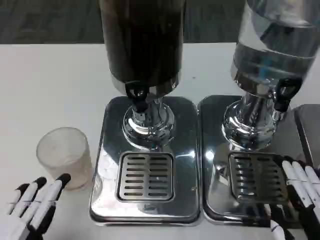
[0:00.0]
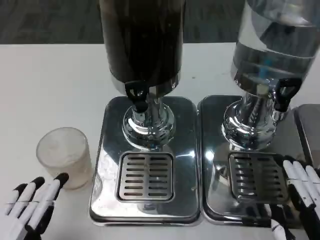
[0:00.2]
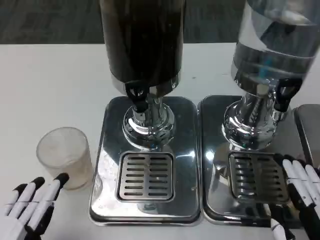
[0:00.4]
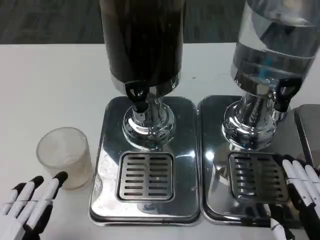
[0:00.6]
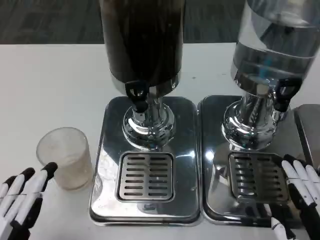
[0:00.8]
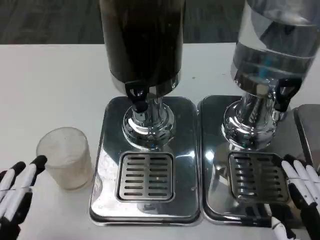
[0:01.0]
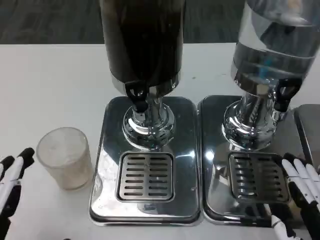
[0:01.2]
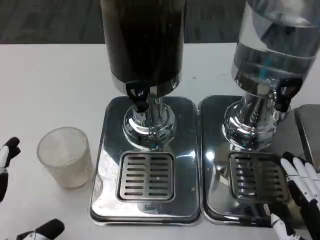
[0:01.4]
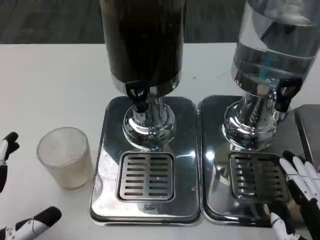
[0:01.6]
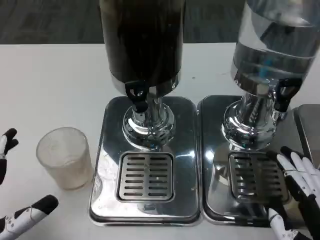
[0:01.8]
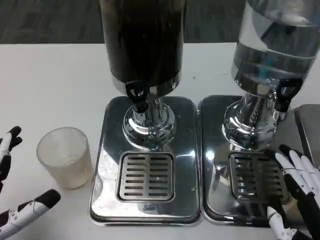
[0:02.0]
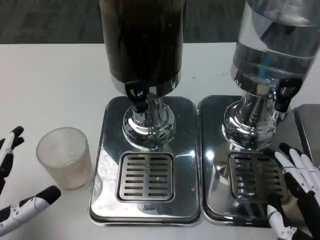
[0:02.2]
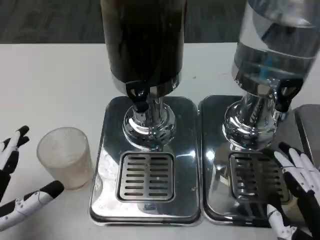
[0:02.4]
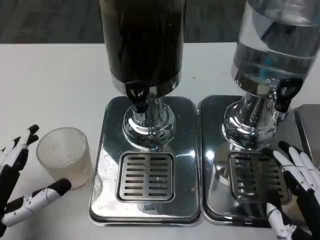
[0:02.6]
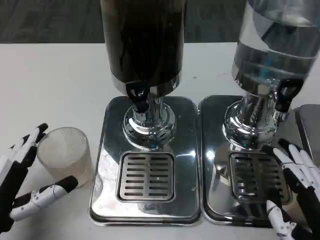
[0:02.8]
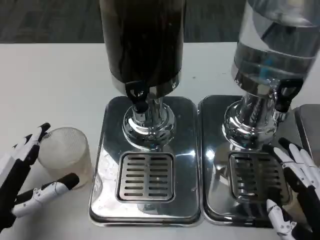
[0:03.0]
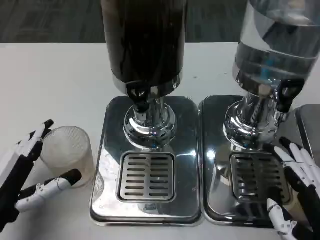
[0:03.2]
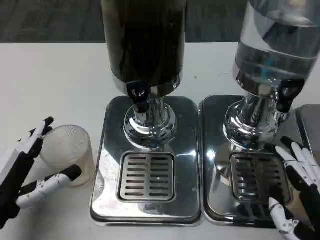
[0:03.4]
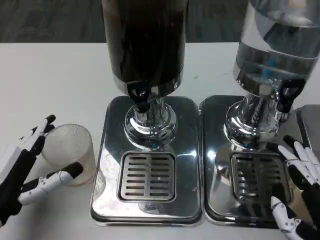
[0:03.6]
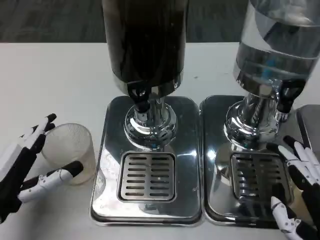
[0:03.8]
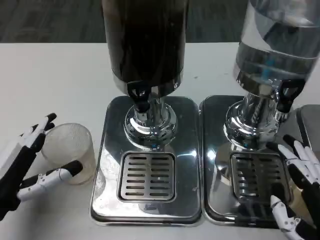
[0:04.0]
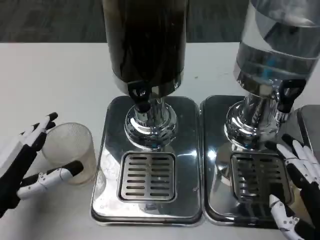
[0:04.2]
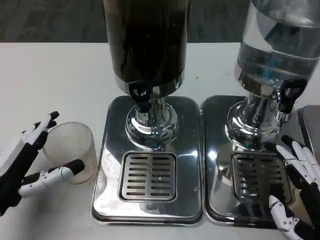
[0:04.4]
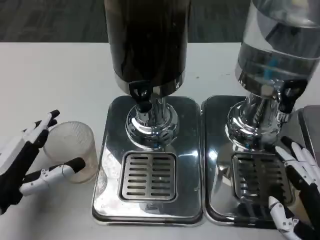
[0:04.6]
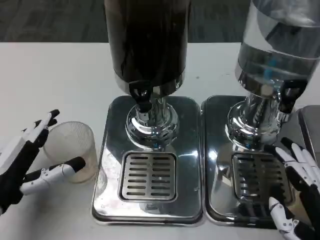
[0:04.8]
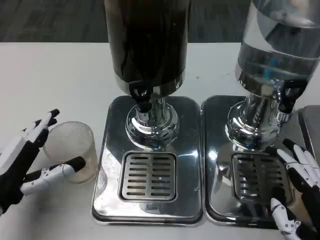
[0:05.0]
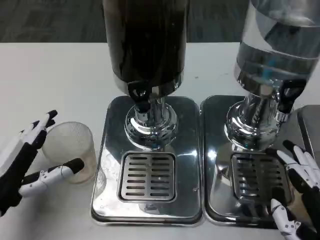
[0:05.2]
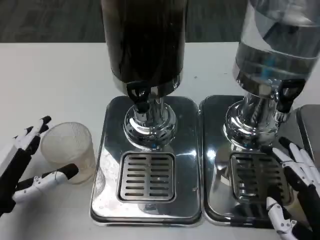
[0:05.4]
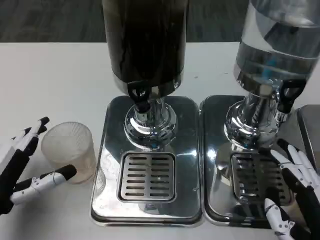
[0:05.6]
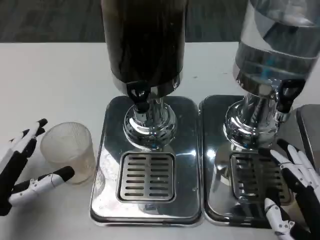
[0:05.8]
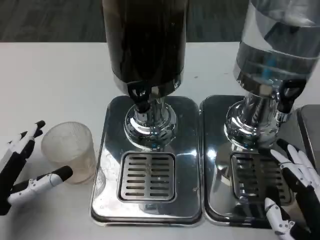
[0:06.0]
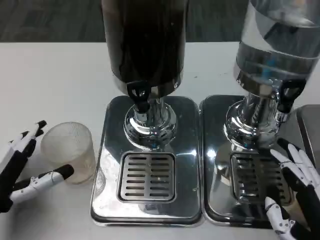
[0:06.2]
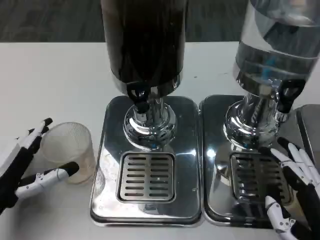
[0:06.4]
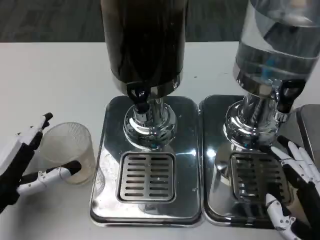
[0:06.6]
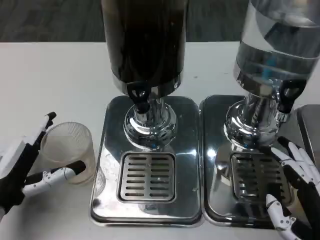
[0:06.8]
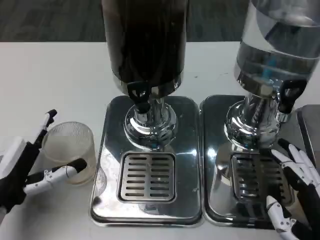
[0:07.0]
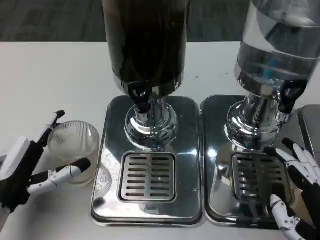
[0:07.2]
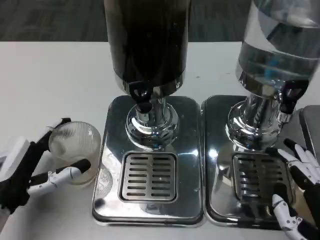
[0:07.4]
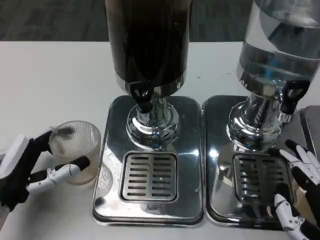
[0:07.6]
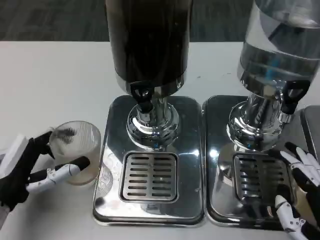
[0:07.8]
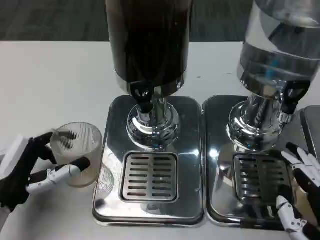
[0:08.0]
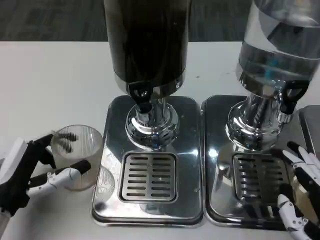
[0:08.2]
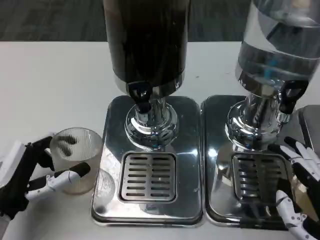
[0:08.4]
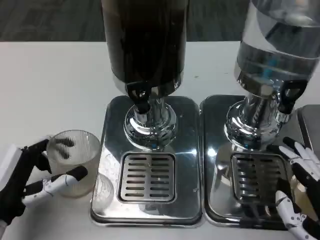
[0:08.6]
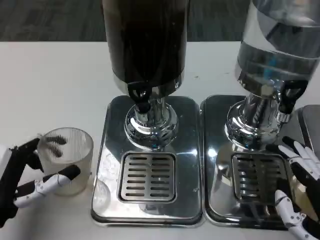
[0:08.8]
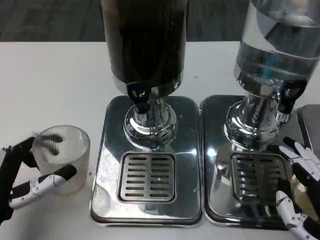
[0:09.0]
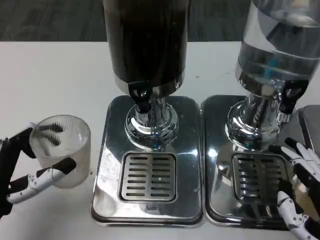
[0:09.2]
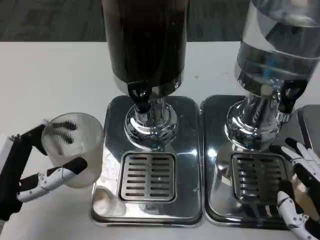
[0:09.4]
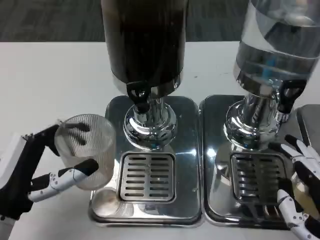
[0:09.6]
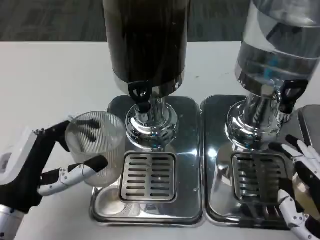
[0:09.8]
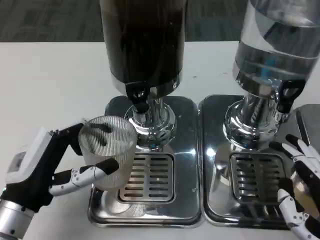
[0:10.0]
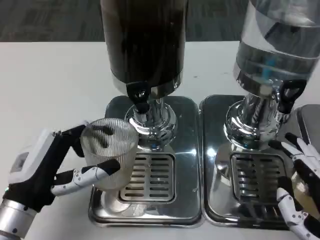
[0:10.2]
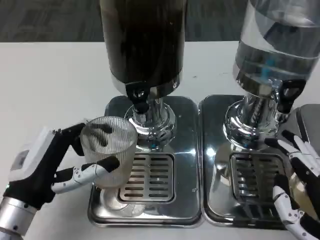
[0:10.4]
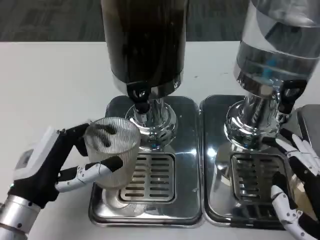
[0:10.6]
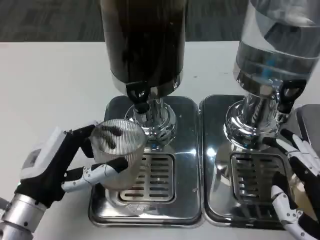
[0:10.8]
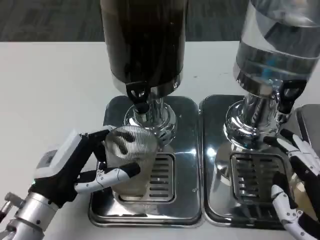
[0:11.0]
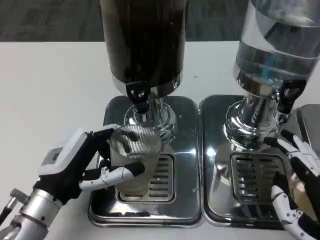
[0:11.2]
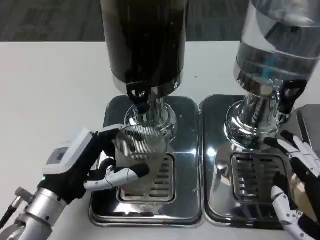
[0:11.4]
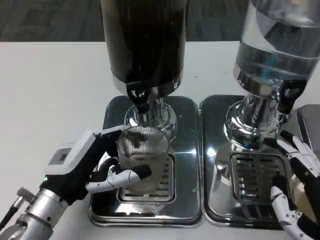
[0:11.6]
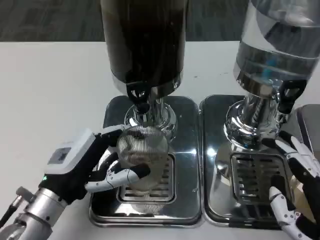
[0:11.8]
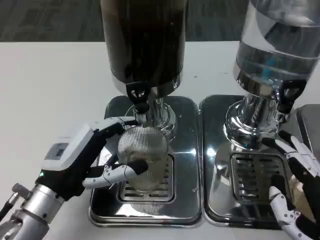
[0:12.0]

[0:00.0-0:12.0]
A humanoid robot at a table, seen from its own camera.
Task of the whole recording: Grasp the cup under the faucet to collect the drink, then remove the cup.
0:00.0 to 0:01.6: There are only small adjustments of the hands.
0:01.6 to 0:03.0: The left hand moves forward, about 10 cm.
0:04.4 to 0:06.0: The hands make only small movements.
0:09.0 to 0:10.4: The left hand ends up some 5 cm from where it was.
0:10.4 to 0:12.0: The hands move only a little.

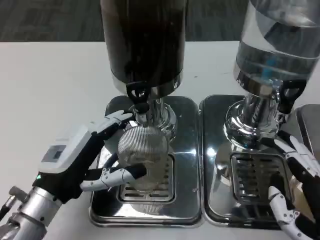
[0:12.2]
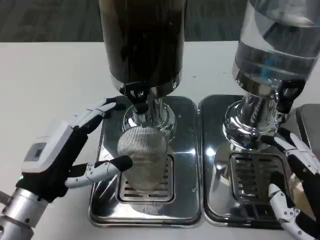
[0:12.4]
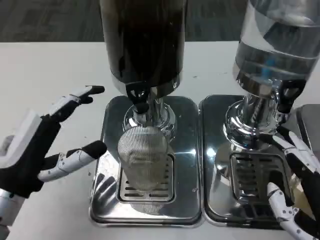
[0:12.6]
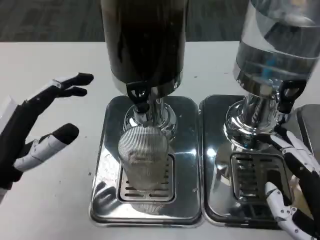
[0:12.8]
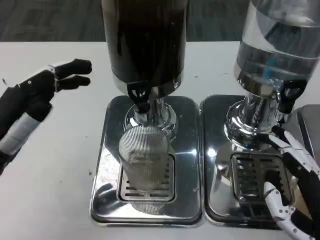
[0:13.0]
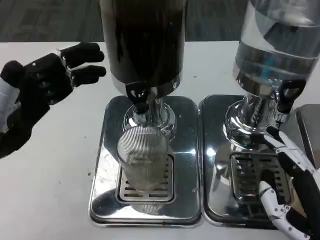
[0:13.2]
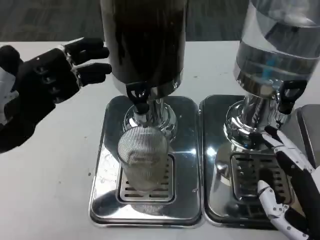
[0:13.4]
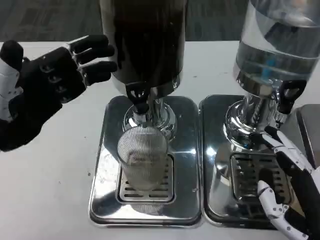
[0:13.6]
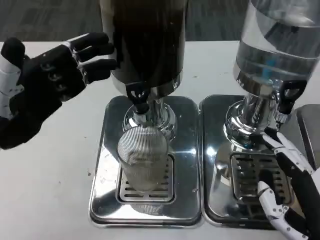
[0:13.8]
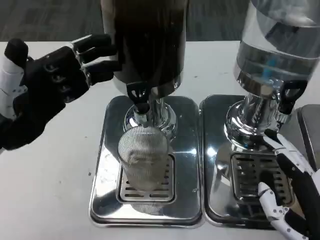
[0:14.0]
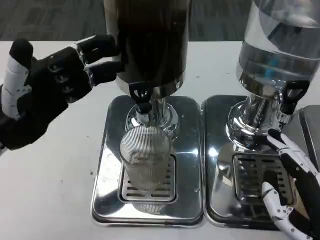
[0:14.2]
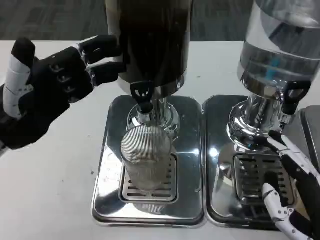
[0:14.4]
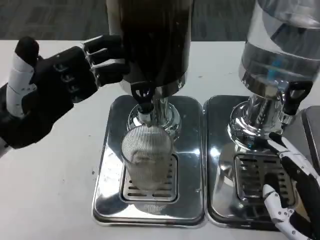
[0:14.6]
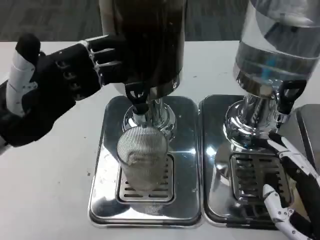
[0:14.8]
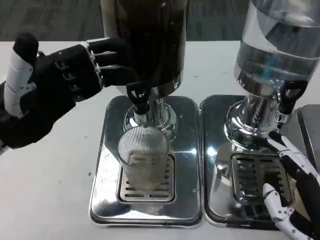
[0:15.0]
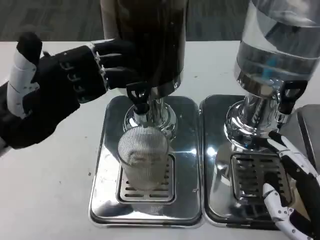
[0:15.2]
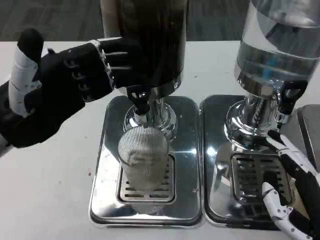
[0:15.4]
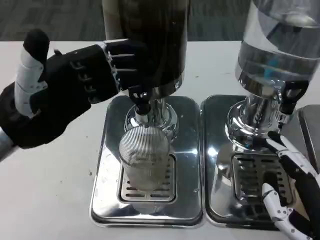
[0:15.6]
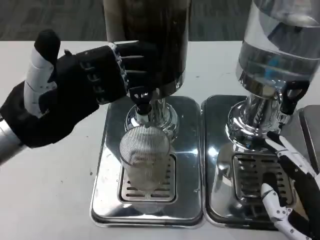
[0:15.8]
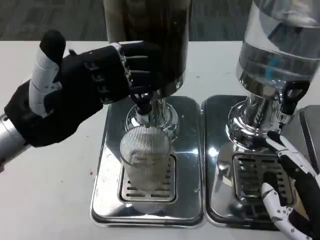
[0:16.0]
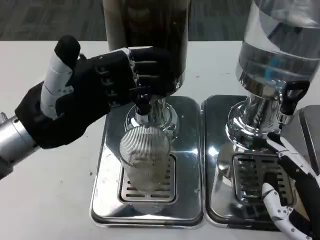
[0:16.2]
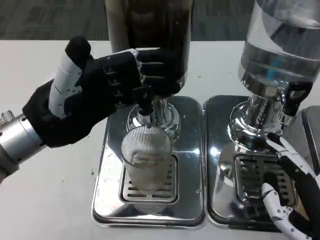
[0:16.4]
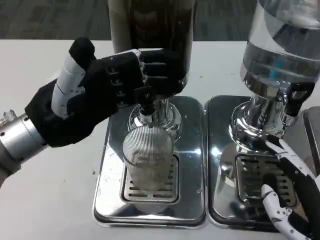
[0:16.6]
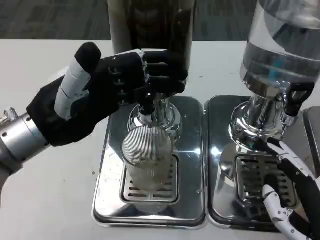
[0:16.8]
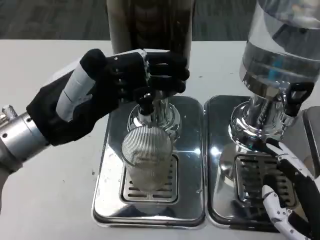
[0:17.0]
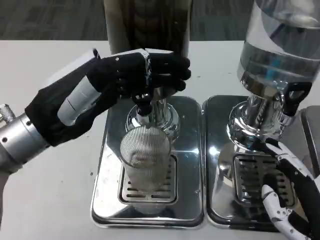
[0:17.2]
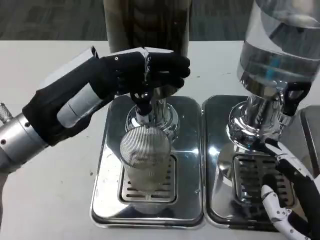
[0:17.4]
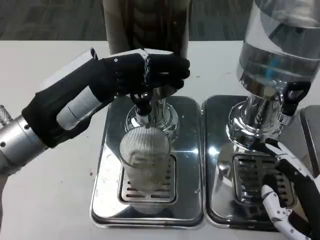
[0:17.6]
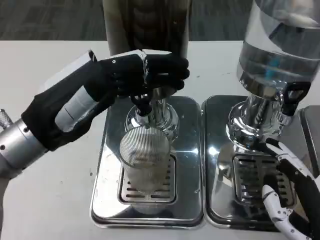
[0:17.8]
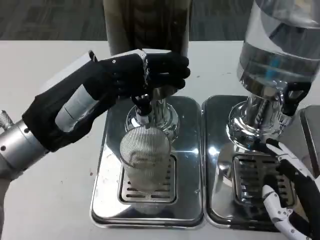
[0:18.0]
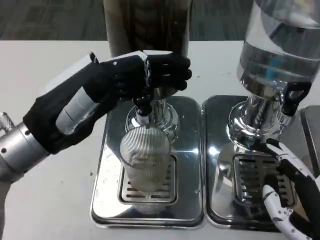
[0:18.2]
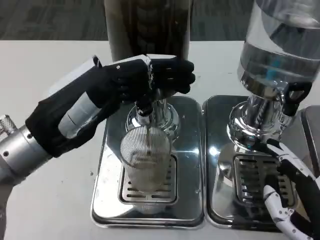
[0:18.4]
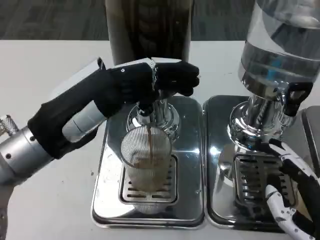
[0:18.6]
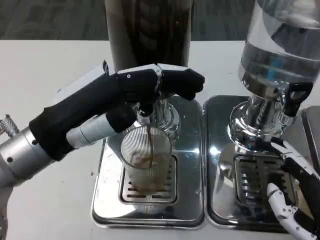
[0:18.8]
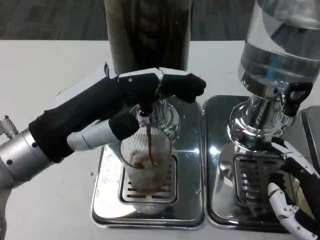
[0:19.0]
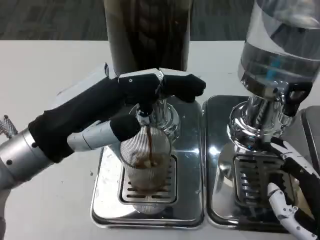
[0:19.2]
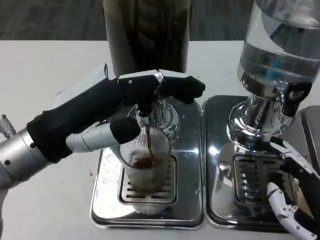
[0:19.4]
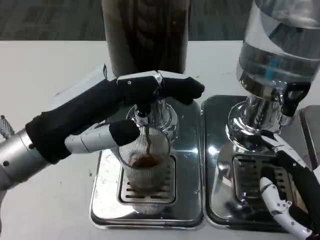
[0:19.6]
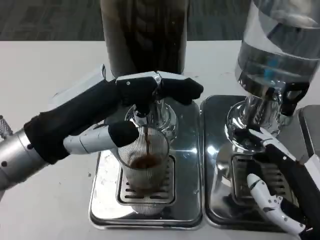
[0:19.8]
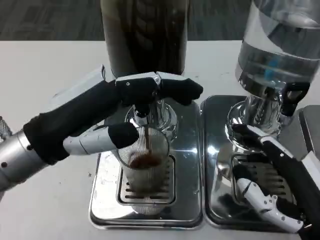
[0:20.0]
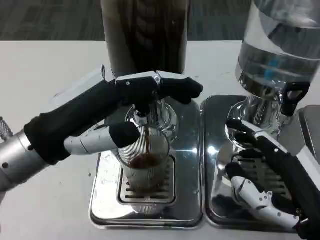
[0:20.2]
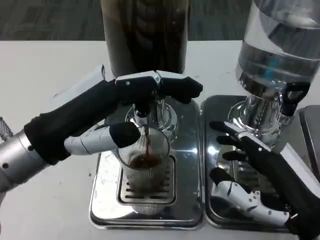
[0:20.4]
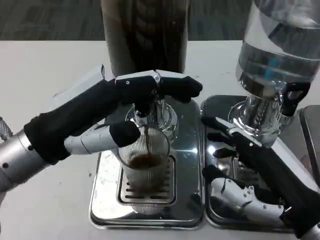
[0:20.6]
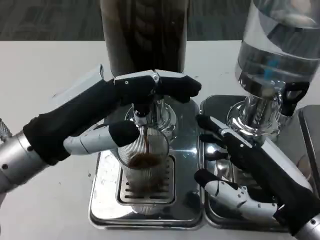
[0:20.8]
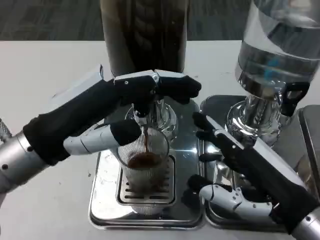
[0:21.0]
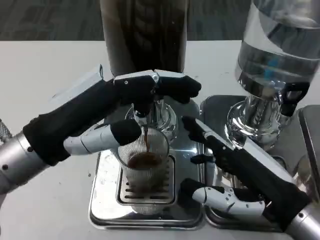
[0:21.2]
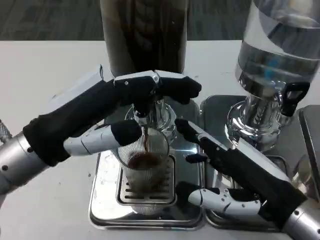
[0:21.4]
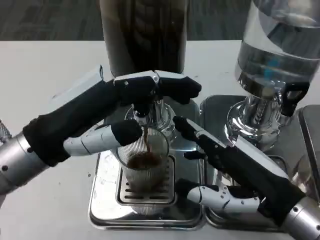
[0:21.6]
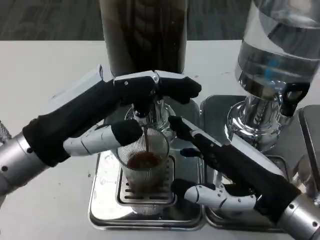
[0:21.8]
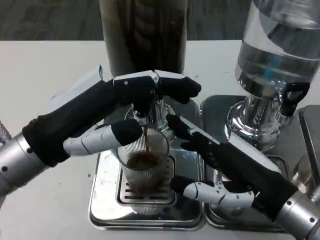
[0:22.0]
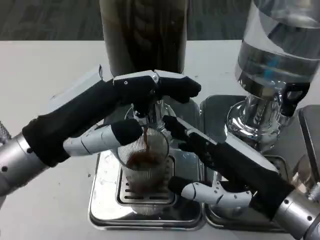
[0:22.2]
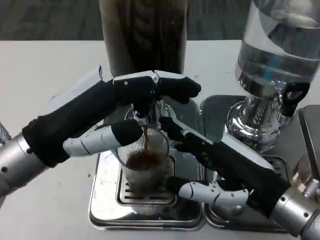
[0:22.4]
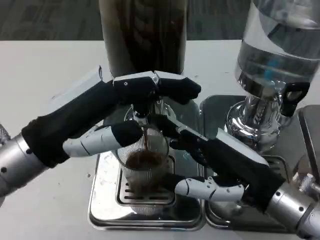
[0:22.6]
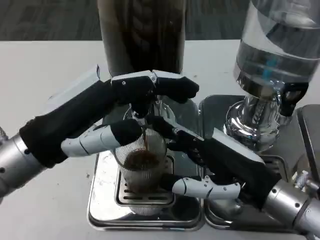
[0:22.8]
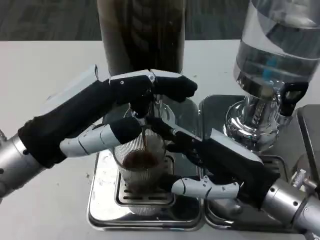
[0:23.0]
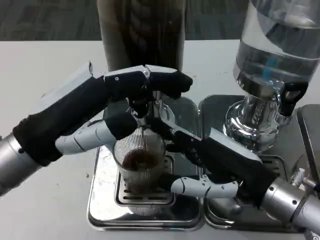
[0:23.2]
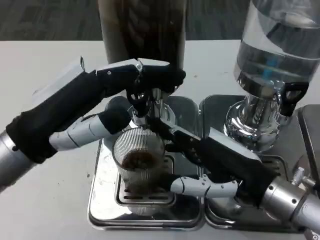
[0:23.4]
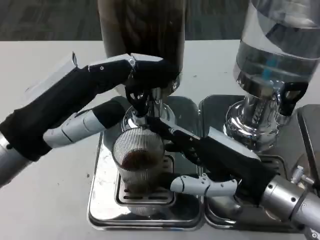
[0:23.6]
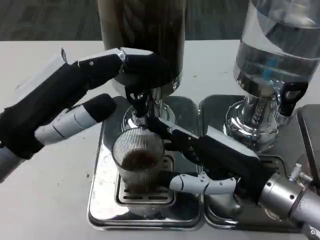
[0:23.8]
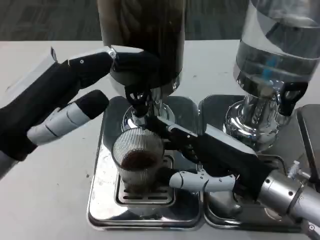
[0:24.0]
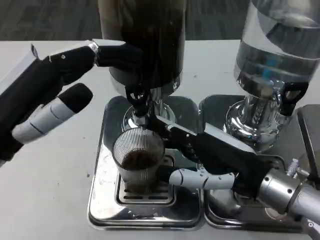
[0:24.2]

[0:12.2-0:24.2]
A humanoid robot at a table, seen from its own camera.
Task of the whole recording: Grasp the cup under the faucet to collect the drink, then remove the cup.
0:12.2 to 0:13.8: The left hand heads upward and to the left, covering roughly 15 cm.
0:13.8 to 0:15.2: The hands make only small movements.
0:19.8 to 0:21.2: The right hand goes about 5 cm forward.
0:21.2 to 0:22.6: There are only small adjustments of the hands.
